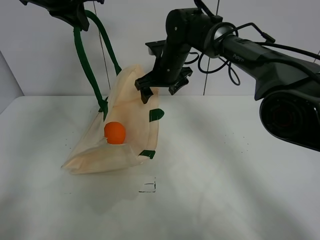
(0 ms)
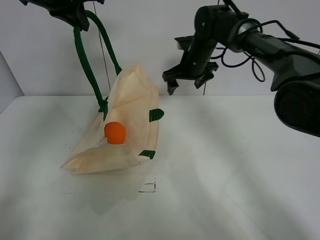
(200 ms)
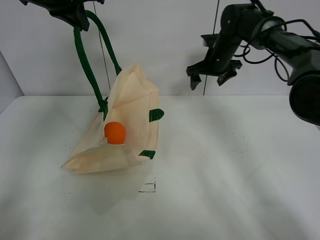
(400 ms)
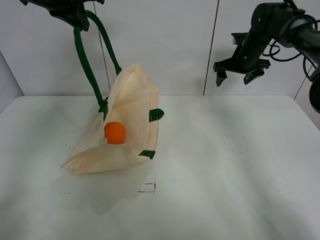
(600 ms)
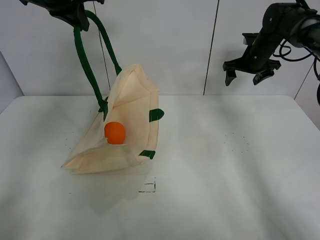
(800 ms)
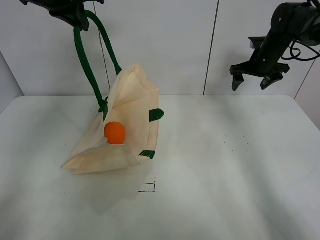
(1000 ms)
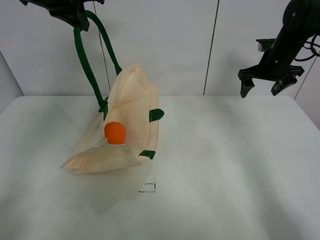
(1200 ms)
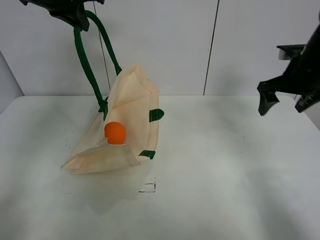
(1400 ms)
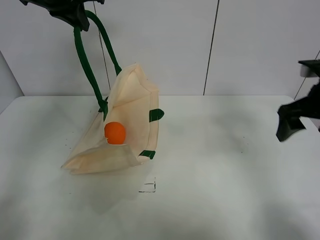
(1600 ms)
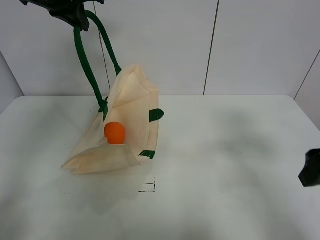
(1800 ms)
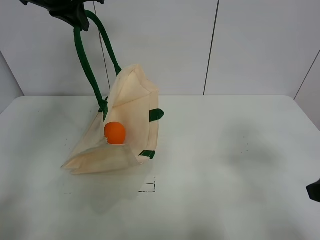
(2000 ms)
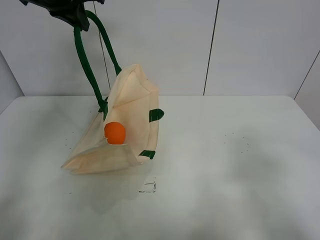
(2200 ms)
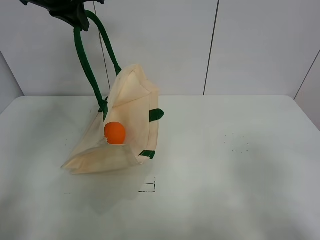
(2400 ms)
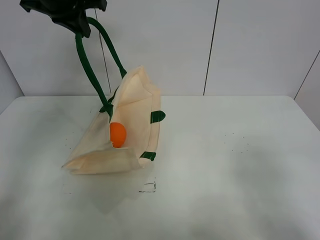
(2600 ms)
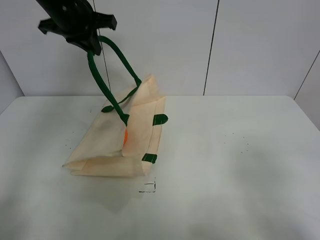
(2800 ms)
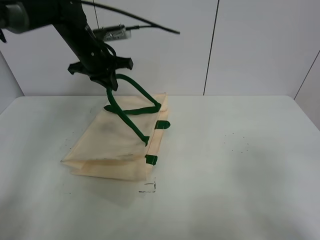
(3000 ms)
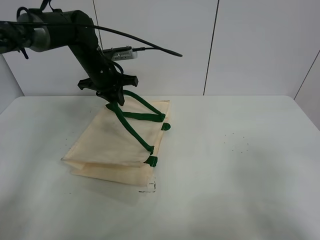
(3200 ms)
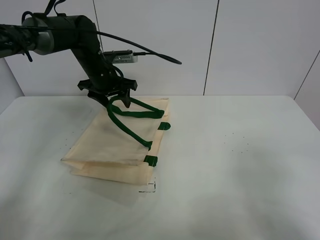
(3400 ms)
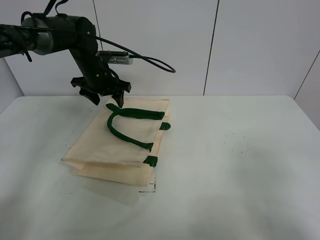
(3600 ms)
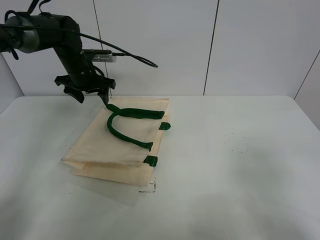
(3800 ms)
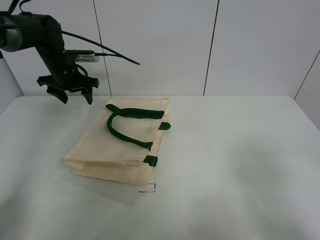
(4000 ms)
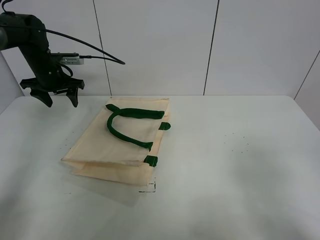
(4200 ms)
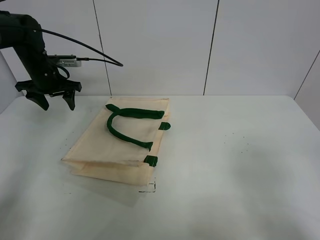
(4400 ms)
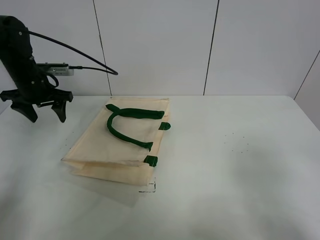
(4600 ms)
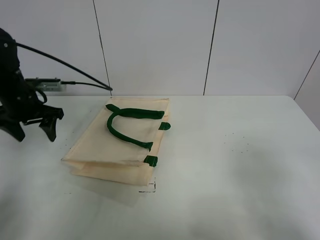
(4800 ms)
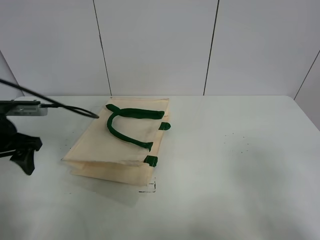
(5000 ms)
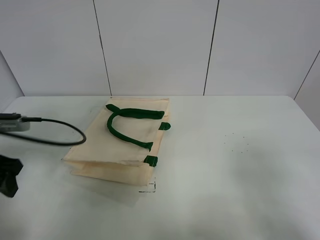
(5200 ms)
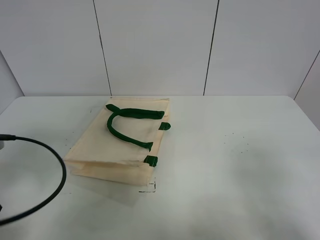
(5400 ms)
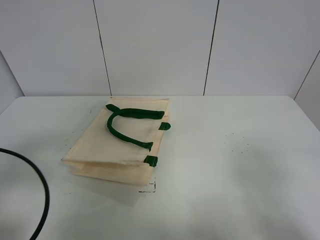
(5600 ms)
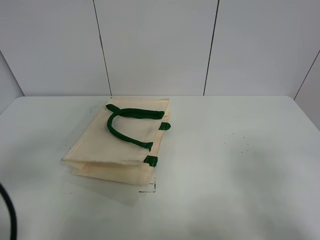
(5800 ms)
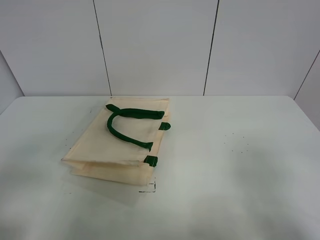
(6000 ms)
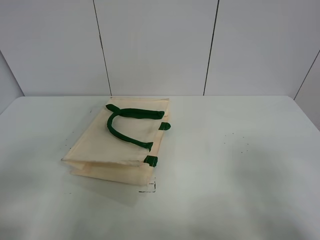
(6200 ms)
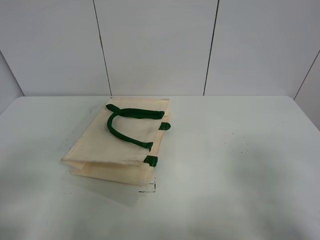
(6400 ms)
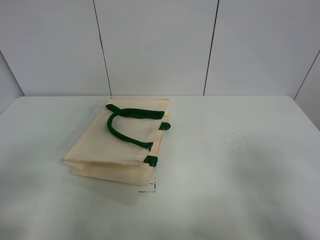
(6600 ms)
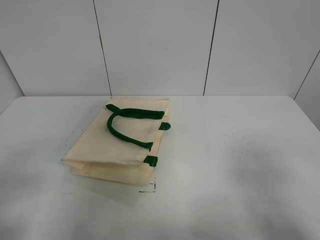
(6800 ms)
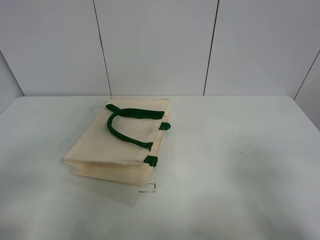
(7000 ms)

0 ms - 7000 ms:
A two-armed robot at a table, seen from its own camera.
Task of the whole recording: open the white linen bag and put the orange in the bag.
Step, 0 ms - 3600 ms: Put down the handbag with left gripper.
0 ms - 1400 ms: The right gripper shifts about 30 cm to the right and backward.
1400 ms - 2800 ms: The right gripper moves backward, approximately 35 cm; the left gripper moves downward, some 5 cm.
2800 ms - 4200 ms: The left gripper moves downward, to the left and forward, approximately 20 cm, and opens.
4200 ms - 5600 ms: The left gripper moves backward, some 40 cm.
5600 ms - 7000 ms: The left gripper goes about 10 cm backward.
